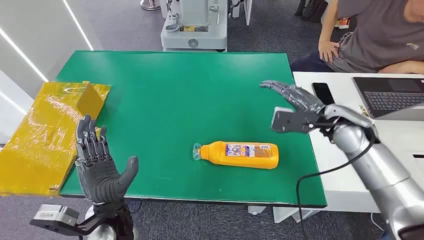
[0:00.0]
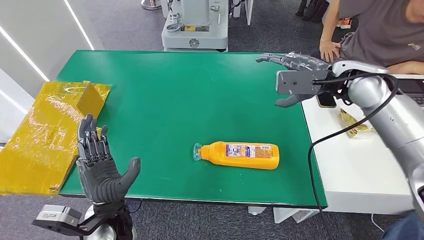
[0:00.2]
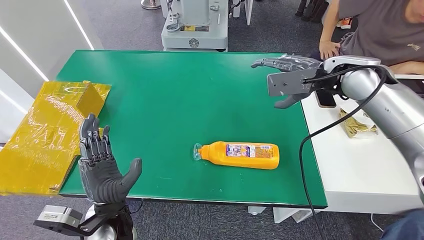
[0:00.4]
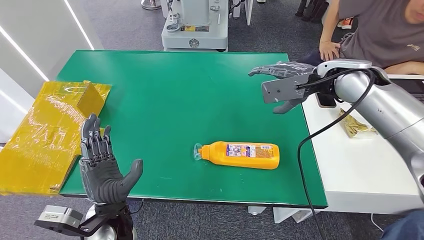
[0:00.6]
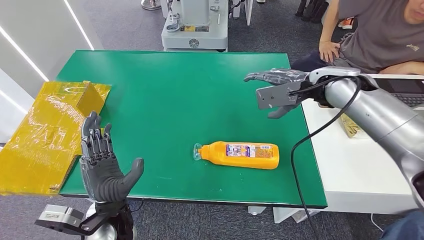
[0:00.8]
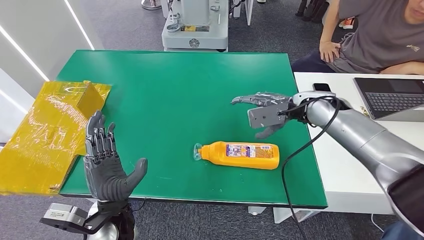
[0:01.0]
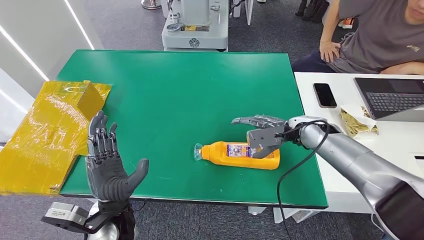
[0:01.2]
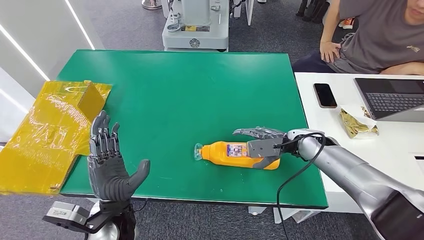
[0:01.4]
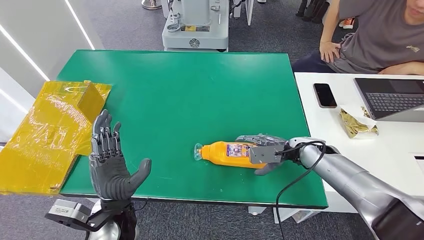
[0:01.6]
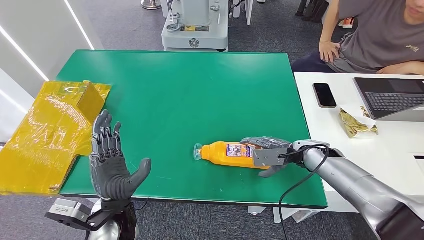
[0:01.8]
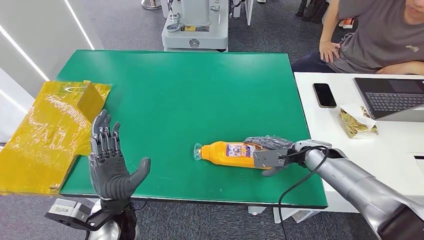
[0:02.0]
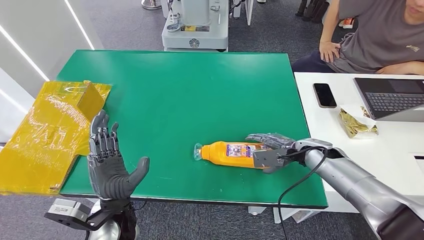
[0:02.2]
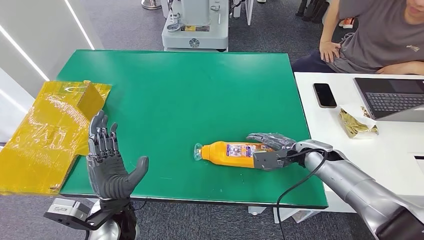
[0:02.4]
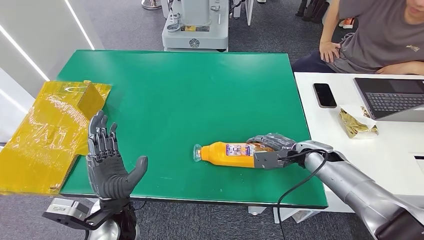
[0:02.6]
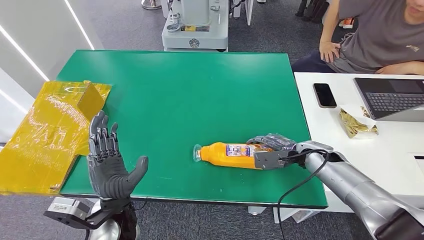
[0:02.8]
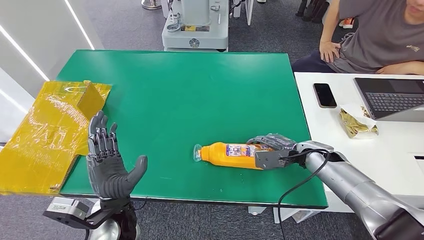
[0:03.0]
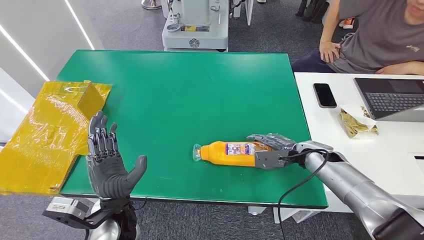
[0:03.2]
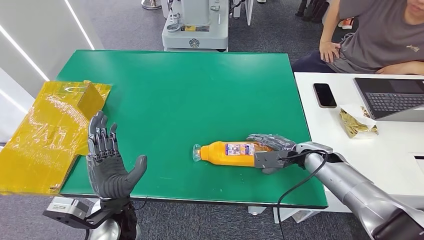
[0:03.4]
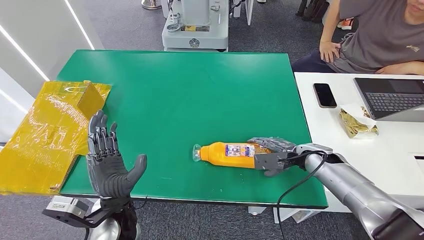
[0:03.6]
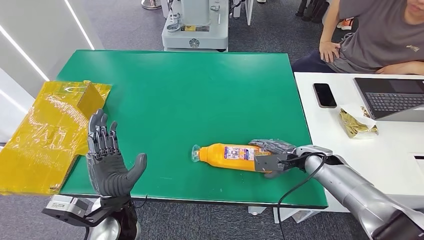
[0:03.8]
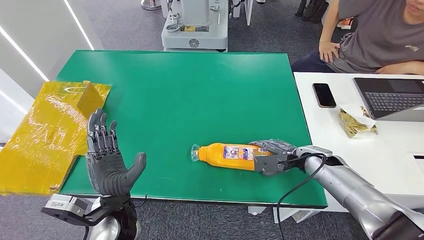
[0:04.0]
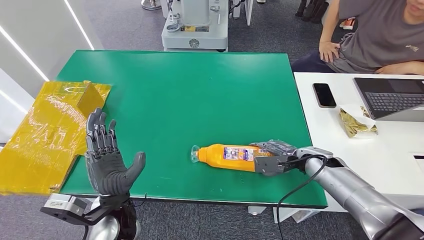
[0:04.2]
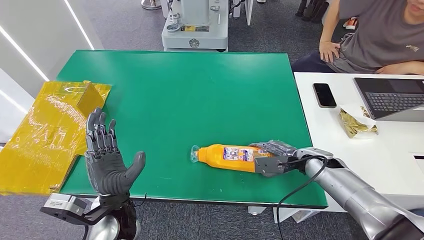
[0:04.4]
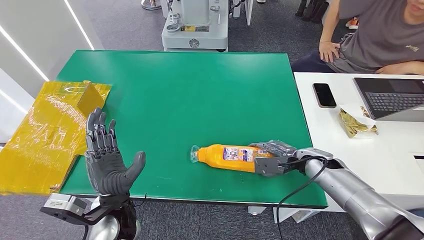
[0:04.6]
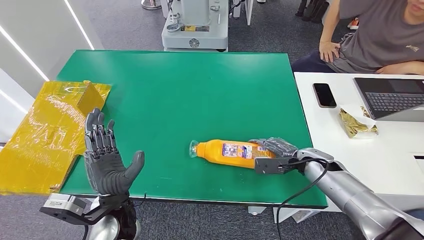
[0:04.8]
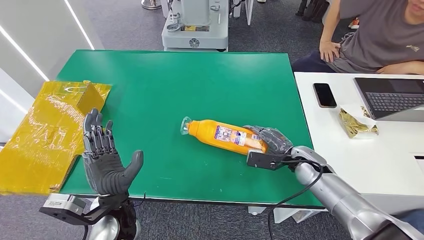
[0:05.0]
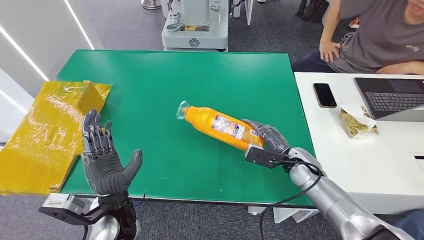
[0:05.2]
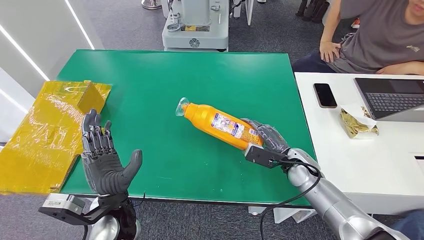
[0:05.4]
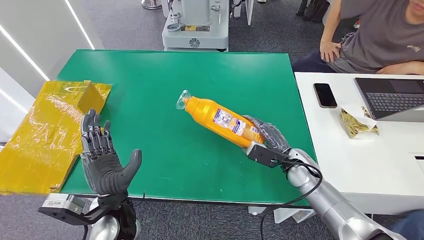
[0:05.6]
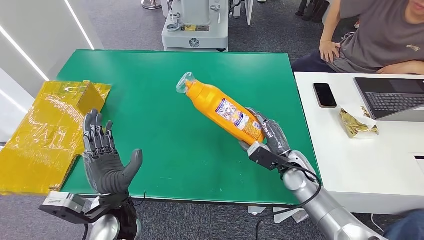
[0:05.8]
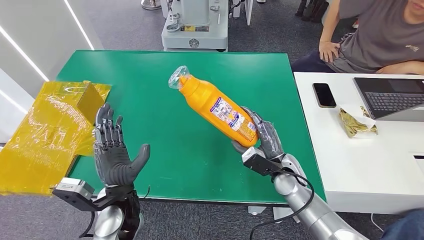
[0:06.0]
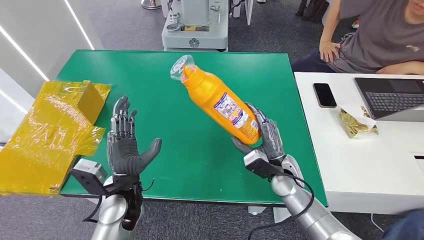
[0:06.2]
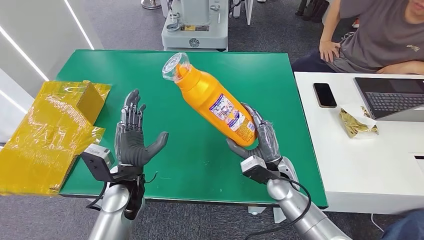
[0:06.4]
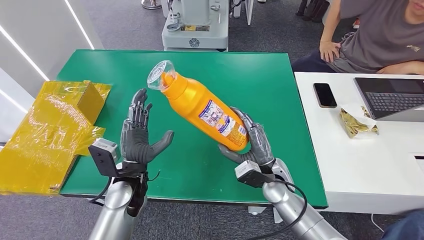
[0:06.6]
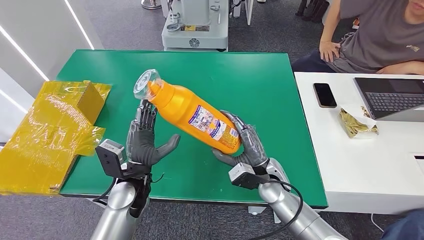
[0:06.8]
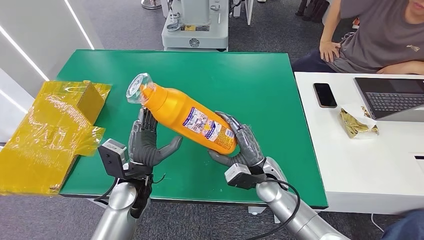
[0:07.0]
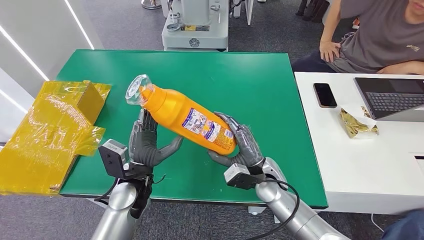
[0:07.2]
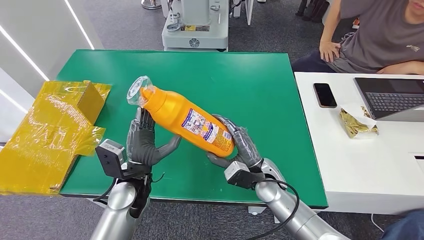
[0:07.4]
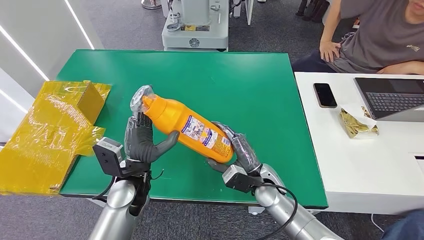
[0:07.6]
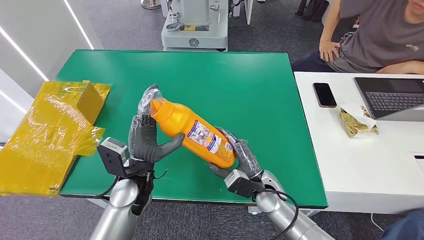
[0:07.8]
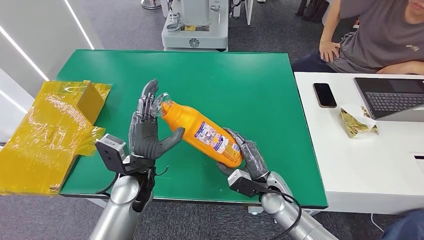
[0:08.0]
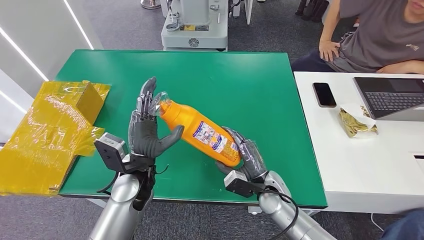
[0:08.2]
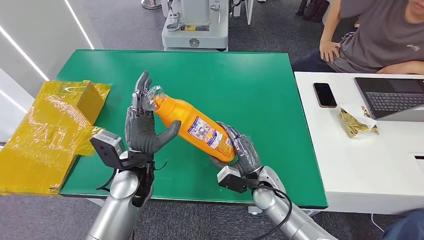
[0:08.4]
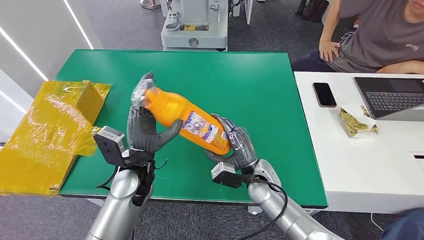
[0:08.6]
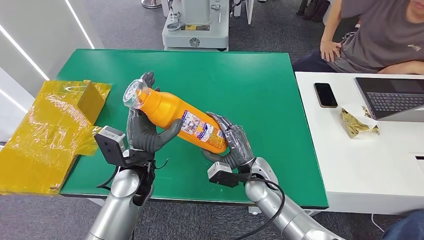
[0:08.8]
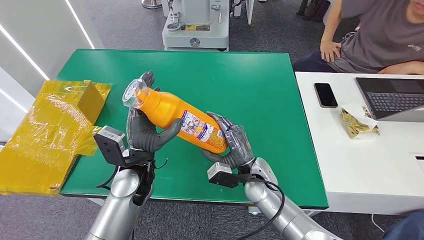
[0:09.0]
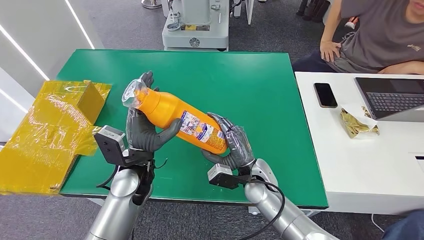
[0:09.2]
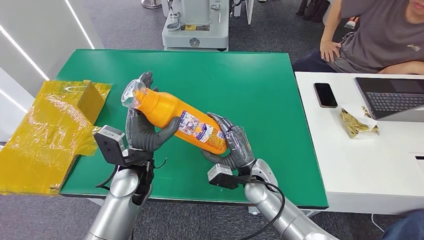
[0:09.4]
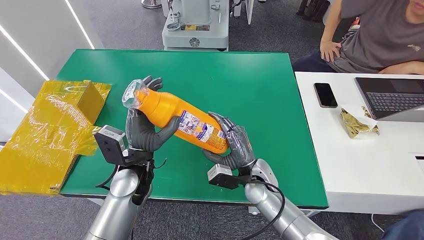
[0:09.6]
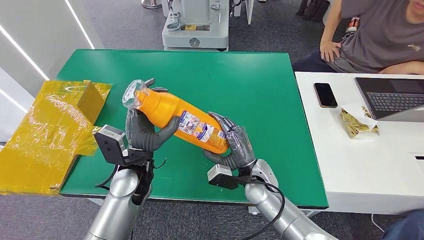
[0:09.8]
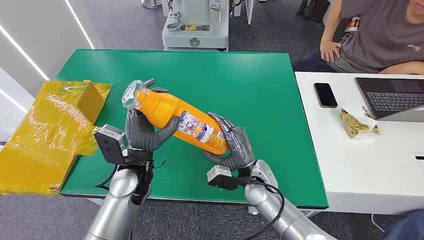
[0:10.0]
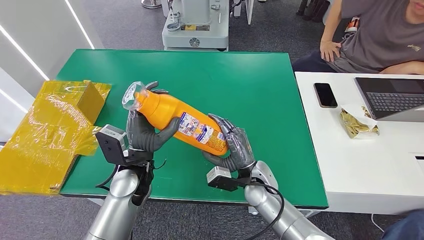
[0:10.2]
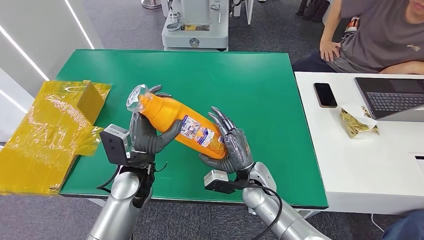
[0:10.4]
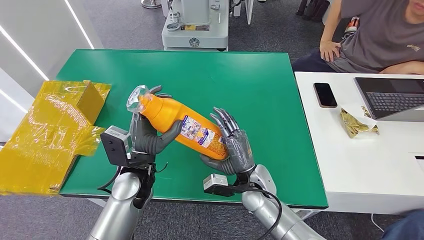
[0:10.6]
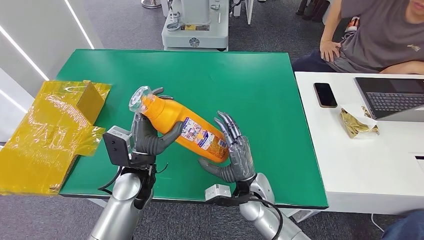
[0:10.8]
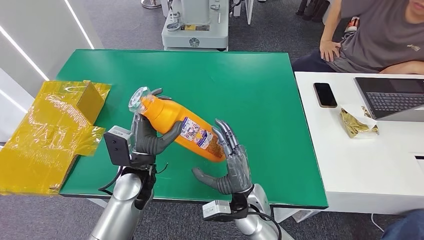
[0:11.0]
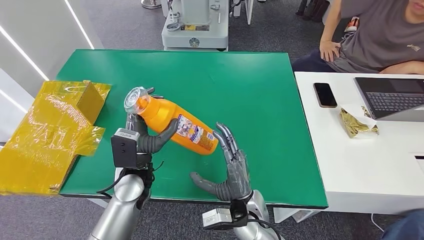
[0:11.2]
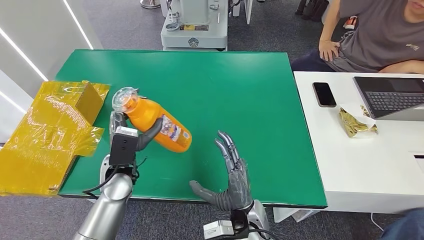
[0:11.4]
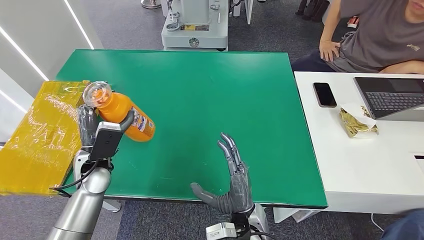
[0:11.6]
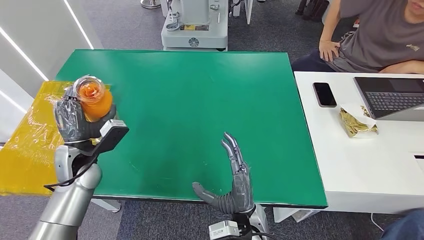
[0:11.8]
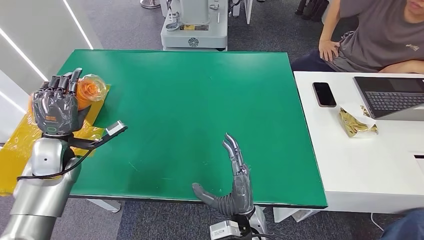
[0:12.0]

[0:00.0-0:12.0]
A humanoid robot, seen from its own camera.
Step, 0:00.0 to 0:06.4: Pick up the bottle from the table.
0:01.6 to 0:04.4: The hands stay close to where they were, moving slightly.
0:04.4 to 0:06.0: The right hand is displaced to the left by approximately 10 cm.
0:06.0 to 0:07.6: The left hand shifts roughly 5 cm forward. The right hand travels to the left by approximately 5 cm.
0:07.6 to 0:09.0: The hands make only small movements.
0:09.0 to 0:10.4: Neither hand changes place.

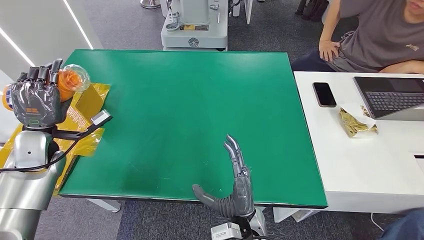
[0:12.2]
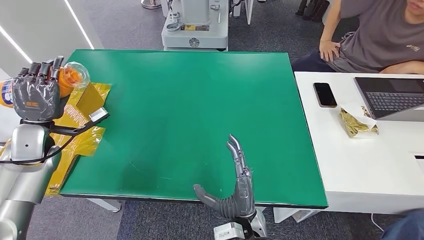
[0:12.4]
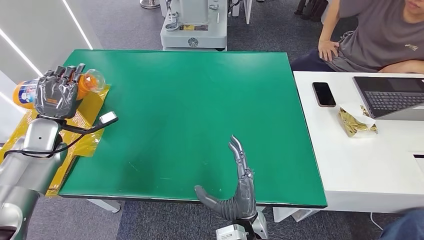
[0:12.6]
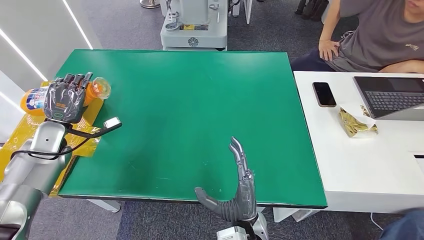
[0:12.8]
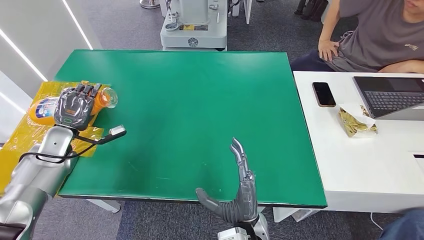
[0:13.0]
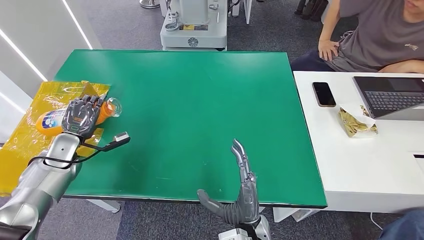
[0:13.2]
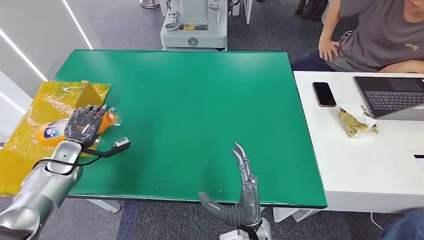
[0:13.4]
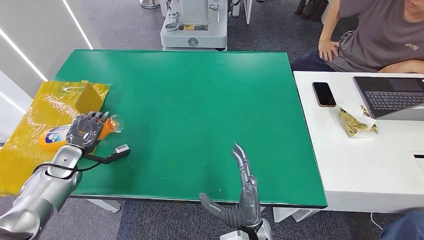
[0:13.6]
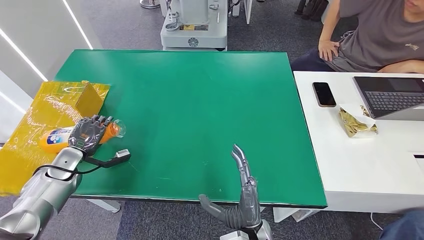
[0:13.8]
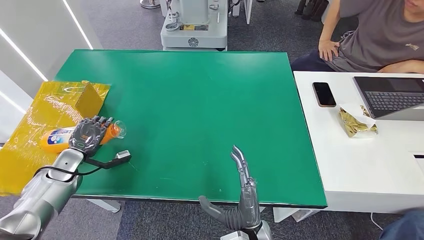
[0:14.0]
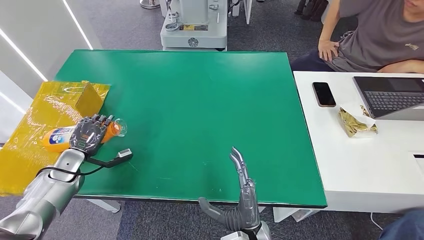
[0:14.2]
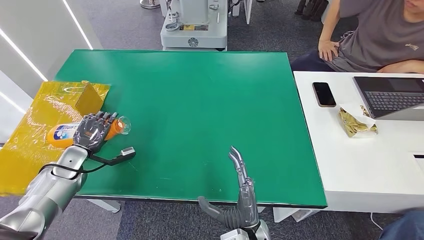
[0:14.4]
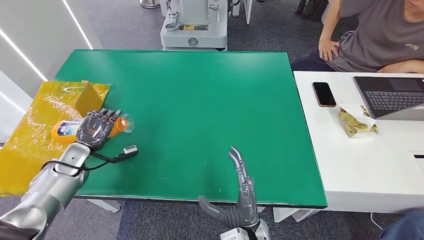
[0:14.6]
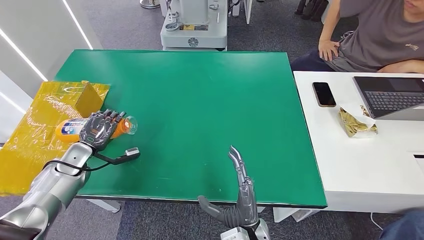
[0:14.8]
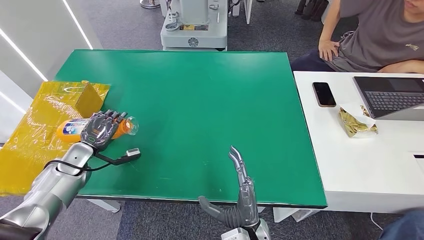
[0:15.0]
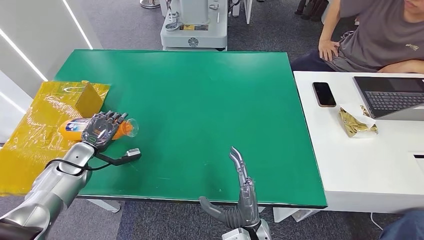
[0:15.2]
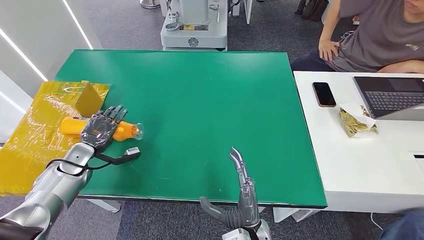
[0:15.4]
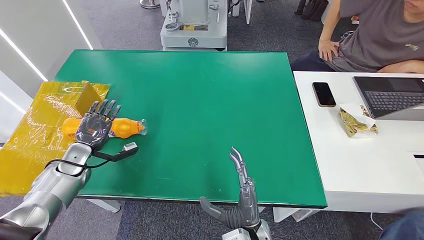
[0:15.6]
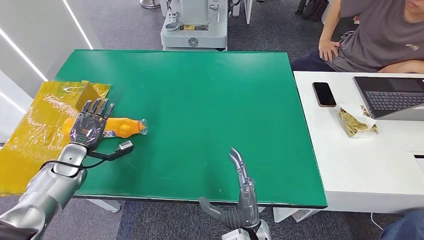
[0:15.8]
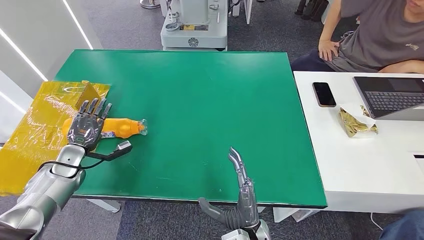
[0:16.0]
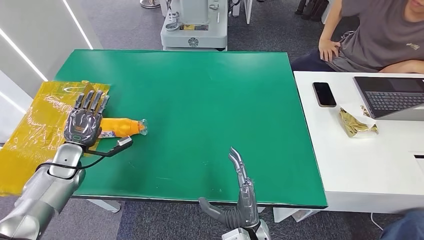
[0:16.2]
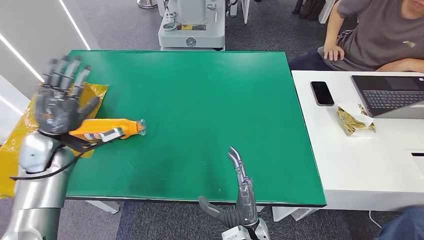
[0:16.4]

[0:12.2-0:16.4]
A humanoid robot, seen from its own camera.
Step, 0:12.2 to 0:16.4: Turn the bottle to the front side.
0:12.2 to 0:13.6: The left hand goes some 10 cm downward.
0:13.6 to 0:15.0: The hands stay close to where they were, moving slightly.
0:15.0 to 0:16.4: The left hand moves upward, some 10 cm.

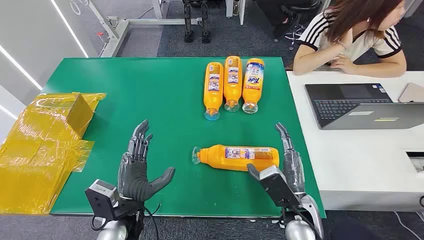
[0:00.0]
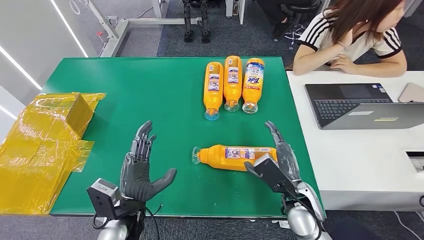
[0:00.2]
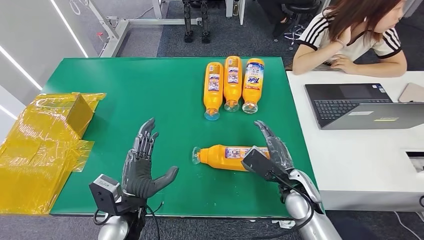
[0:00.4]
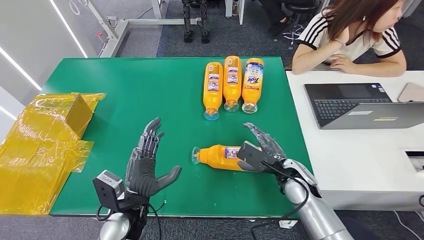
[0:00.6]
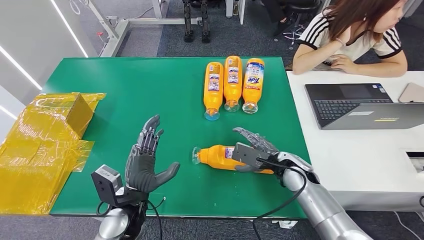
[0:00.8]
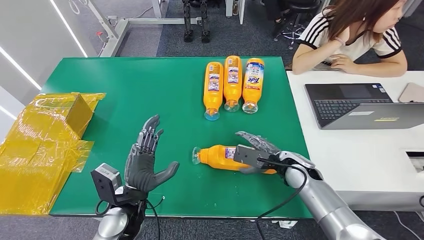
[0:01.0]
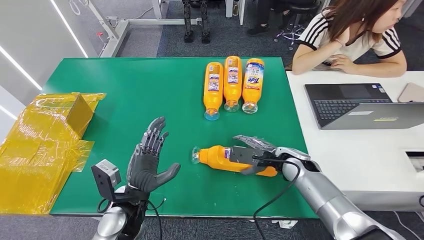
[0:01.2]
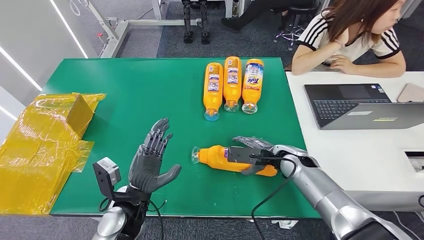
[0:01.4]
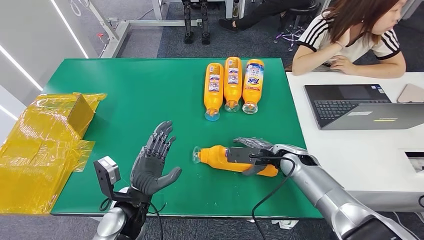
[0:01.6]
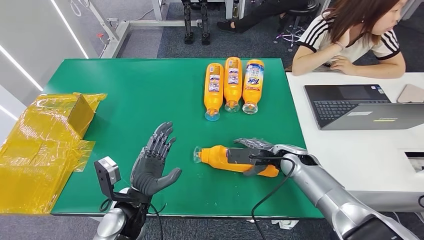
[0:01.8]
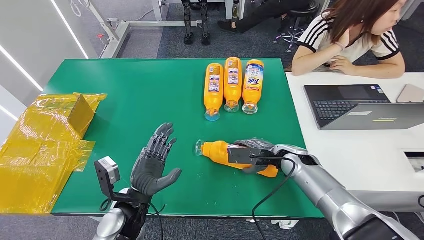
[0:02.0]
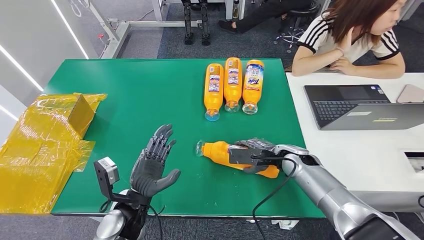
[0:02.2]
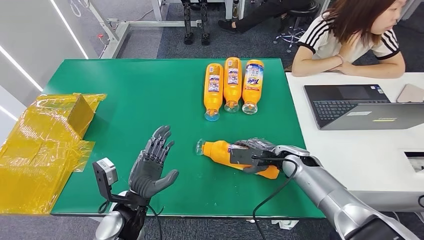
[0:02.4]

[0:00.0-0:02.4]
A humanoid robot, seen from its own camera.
0:01.2 to 0:02.4: The hands move only a little.
